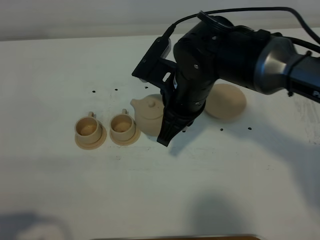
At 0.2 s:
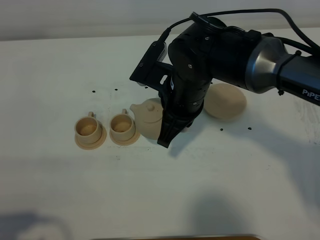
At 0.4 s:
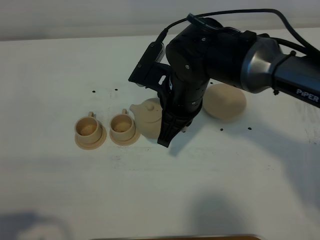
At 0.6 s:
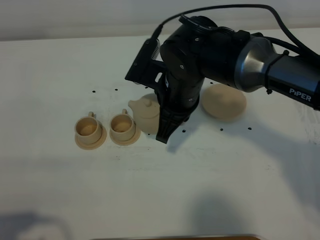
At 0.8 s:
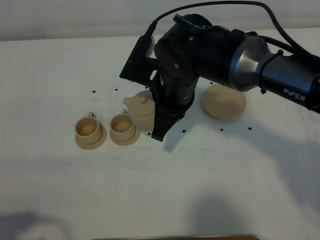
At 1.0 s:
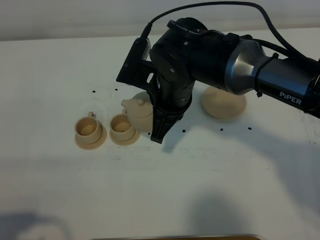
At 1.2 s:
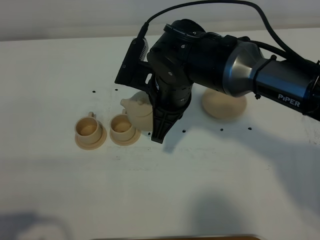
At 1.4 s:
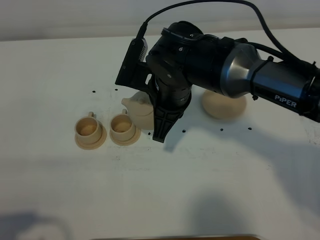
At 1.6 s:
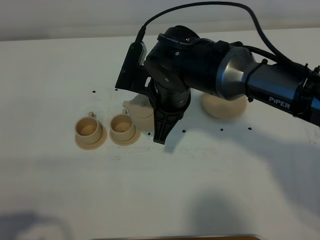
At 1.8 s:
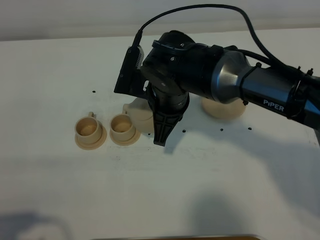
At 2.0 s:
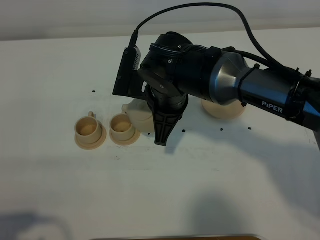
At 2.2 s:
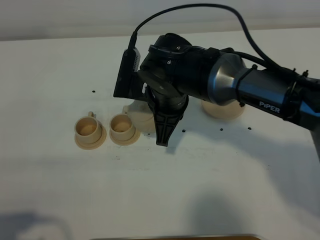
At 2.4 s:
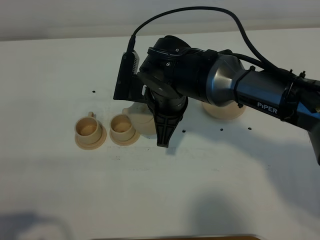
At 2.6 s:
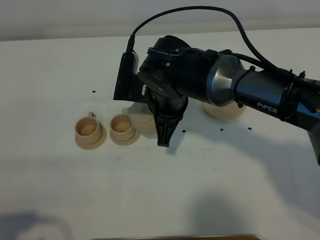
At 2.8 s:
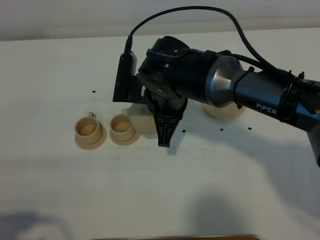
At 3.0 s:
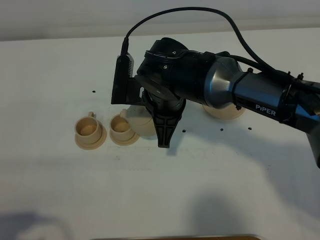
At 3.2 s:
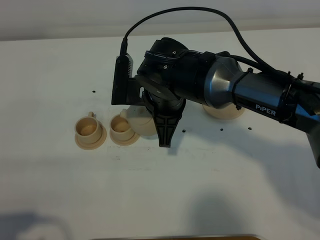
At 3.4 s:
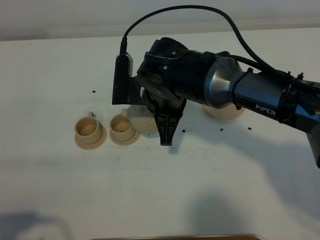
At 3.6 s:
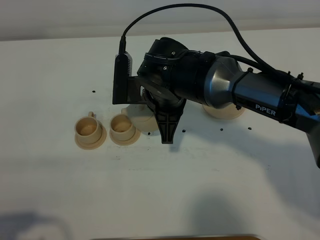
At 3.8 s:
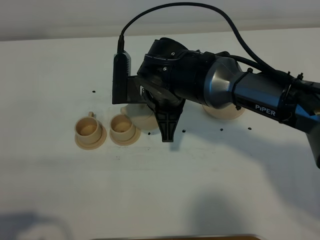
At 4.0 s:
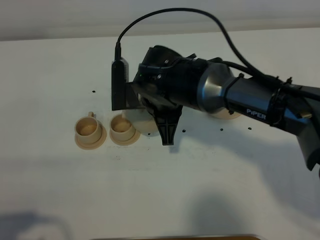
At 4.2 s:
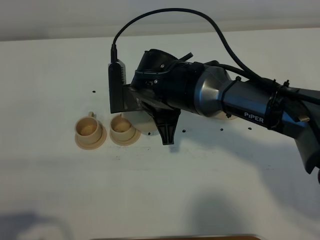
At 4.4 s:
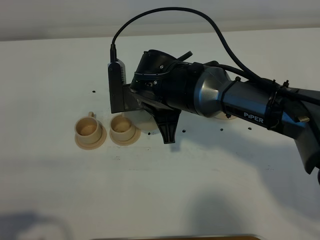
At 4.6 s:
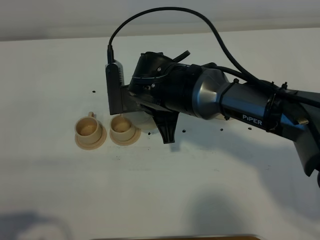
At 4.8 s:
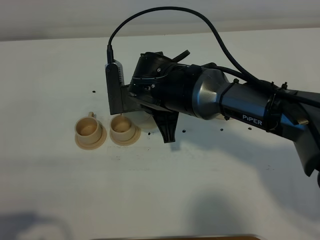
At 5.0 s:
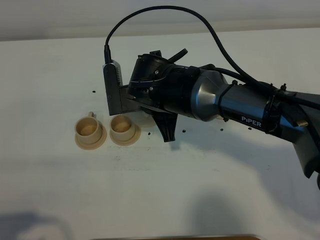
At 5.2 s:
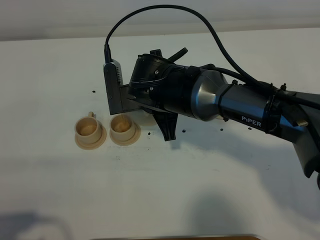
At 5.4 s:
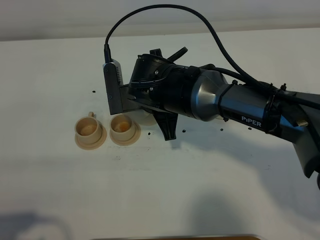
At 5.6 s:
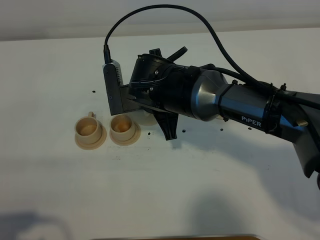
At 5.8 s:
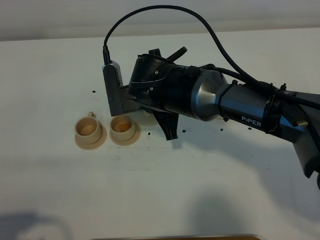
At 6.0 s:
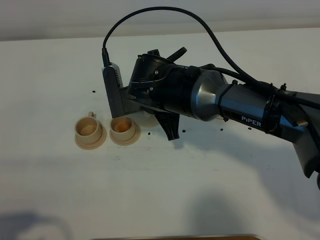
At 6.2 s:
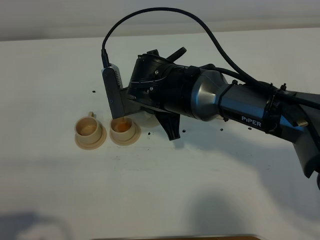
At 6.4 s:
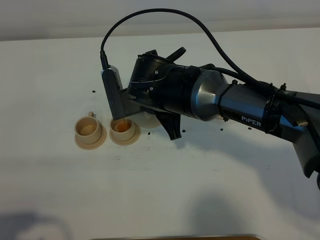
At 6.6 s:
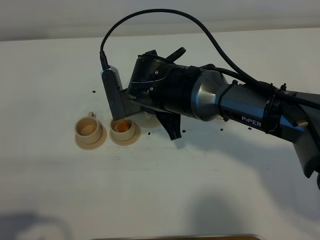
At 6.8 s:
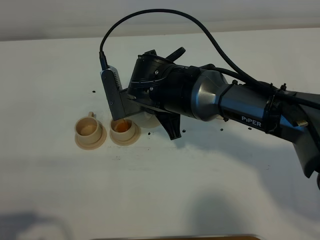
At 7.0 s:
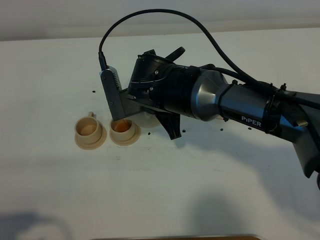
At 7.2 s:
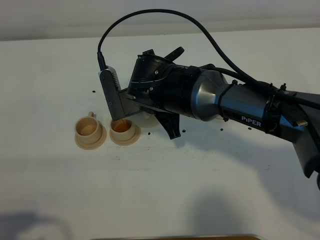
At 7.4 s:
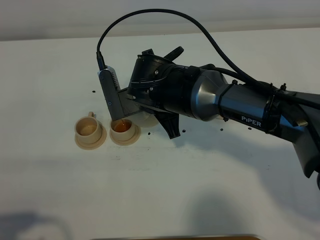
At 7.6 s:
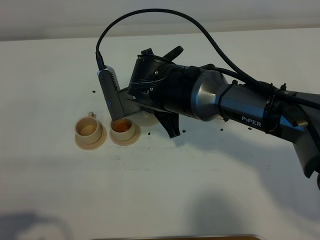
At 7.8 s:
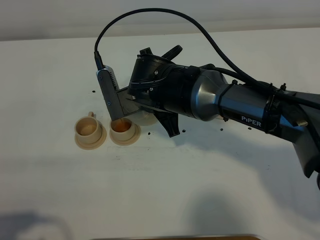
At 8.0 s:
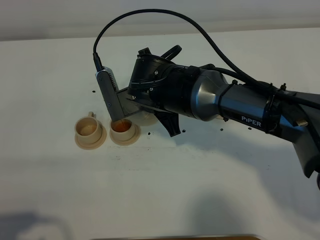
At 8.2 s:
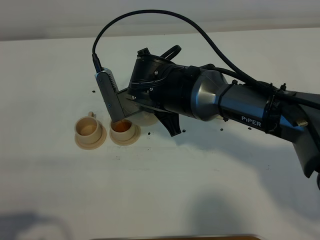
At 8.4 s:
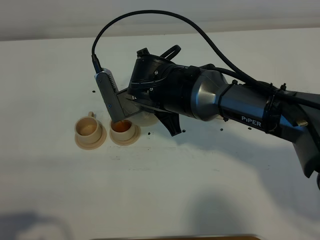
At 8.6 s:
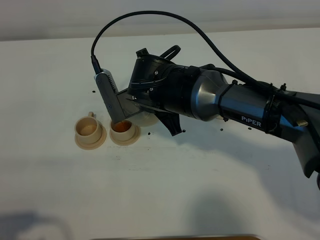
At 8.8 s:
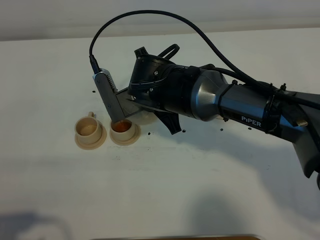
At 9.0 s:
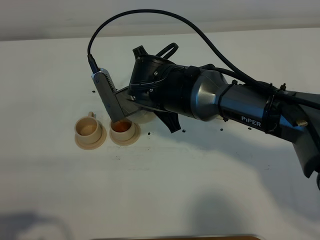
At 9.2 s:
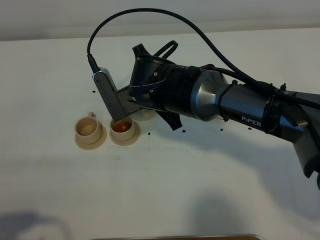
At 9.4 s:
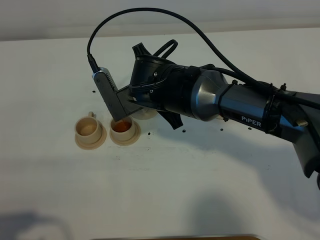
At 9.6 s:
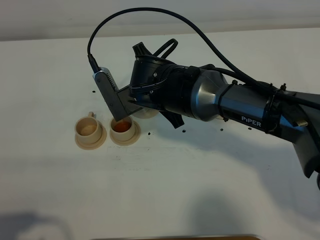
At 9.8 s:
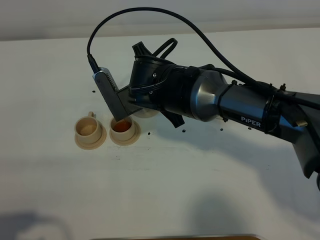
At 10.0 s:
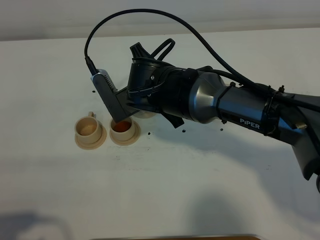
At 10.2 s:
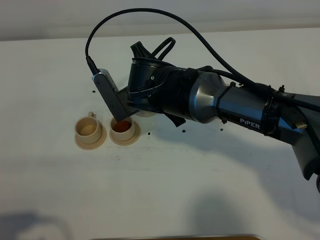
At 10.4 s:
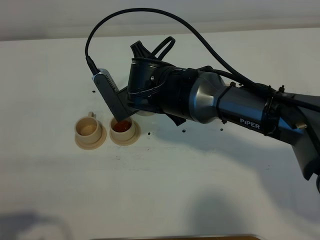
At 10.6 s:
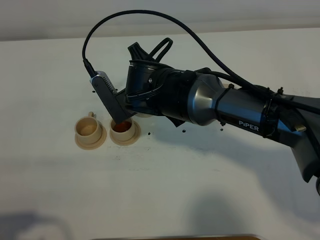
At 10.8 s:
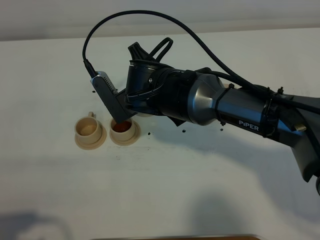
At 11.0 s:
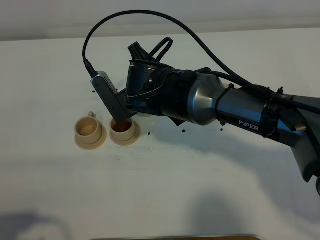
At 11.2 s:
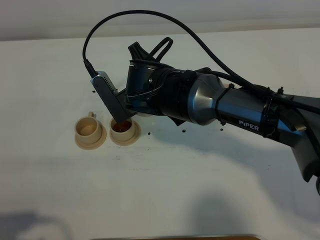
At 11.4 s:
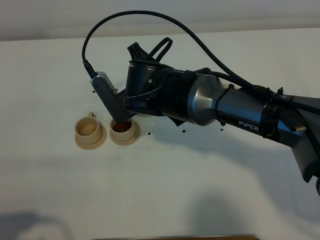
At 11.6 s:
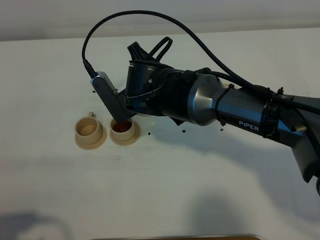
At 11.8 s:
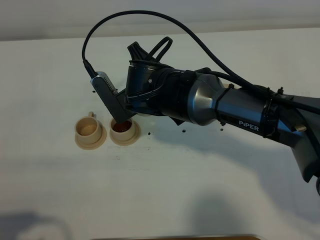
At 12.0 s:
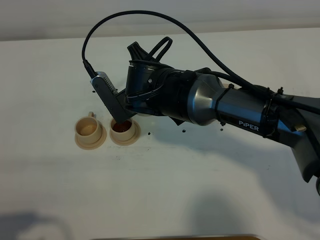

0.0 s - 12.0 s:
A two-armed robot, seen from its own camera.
Task of the whole recording: grasp the brown teapot and pour the tea into the two brown teacups one by one, put the brown teapot back in its original place.
0.0 s - 1.6 s: The grippers make only small movements.
1.6 s - 3.0 s: There are only small adjustments of the grippers.
3.0 s - 4.4 s: The grippers stay close to where they were, moving slightly.
4.4 s - 7.6 s: The grippers stay close to where they were, moving slightly.
7.6 s - 10.4 s: The grippers make only small movements.
10.4 s - 12.0 s: Neither gripper changes place.

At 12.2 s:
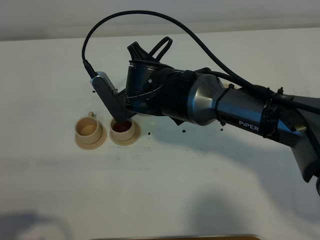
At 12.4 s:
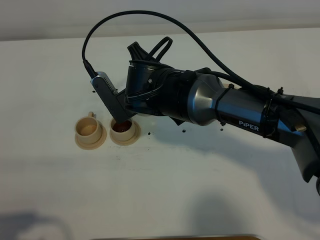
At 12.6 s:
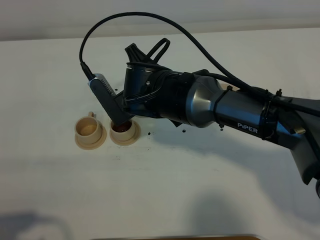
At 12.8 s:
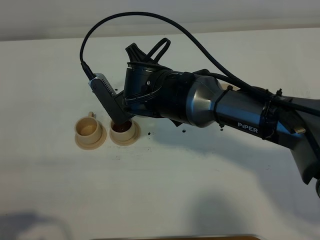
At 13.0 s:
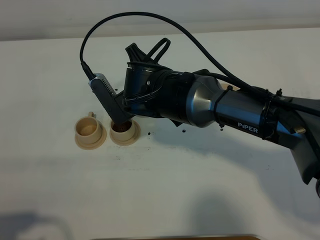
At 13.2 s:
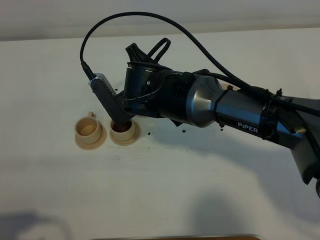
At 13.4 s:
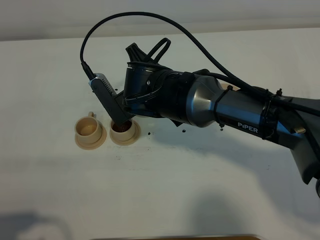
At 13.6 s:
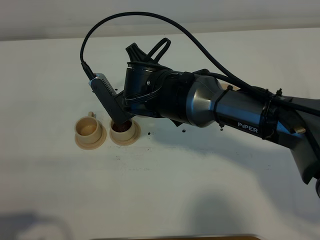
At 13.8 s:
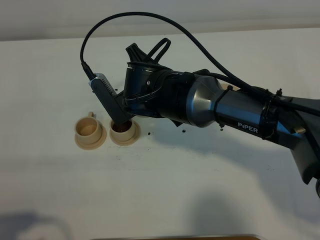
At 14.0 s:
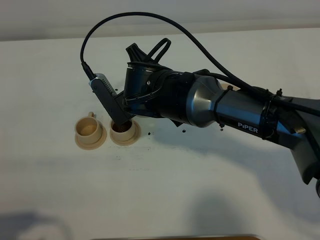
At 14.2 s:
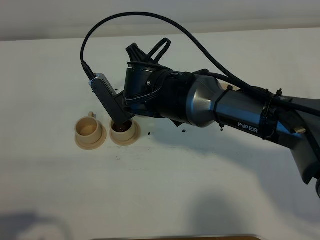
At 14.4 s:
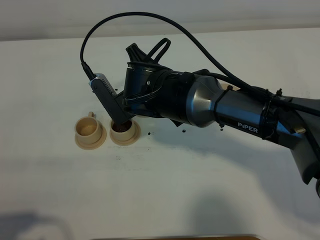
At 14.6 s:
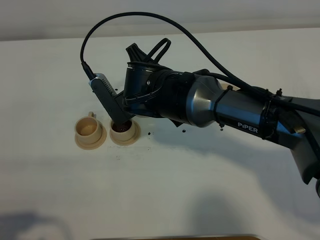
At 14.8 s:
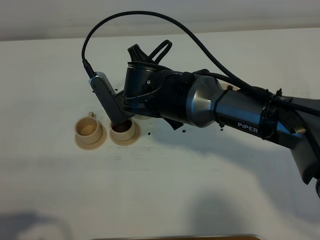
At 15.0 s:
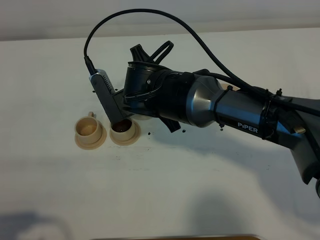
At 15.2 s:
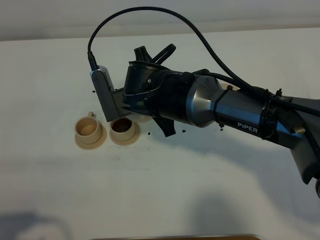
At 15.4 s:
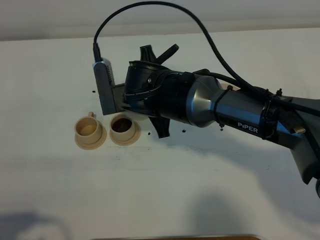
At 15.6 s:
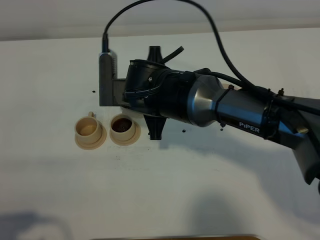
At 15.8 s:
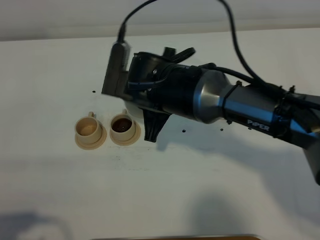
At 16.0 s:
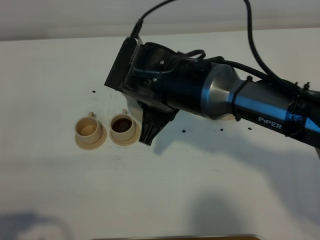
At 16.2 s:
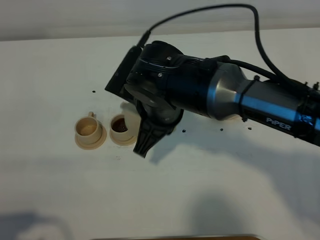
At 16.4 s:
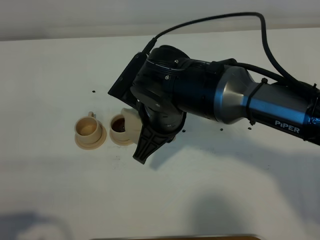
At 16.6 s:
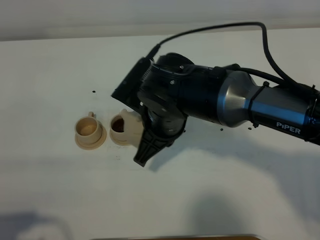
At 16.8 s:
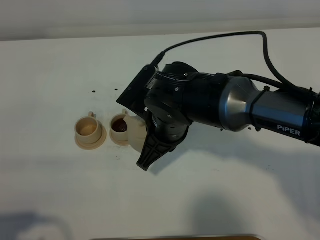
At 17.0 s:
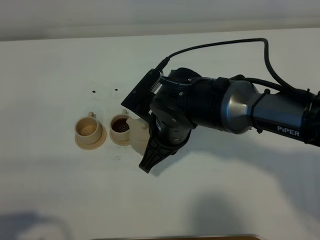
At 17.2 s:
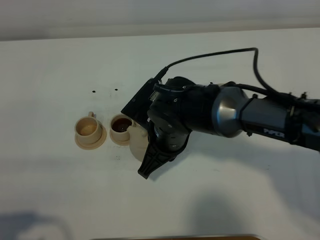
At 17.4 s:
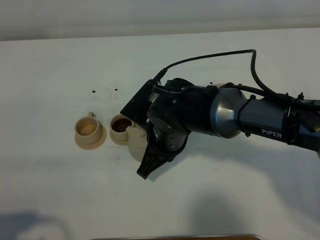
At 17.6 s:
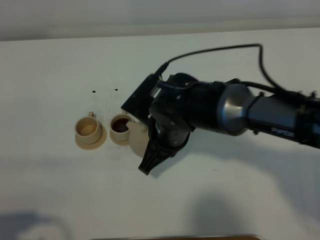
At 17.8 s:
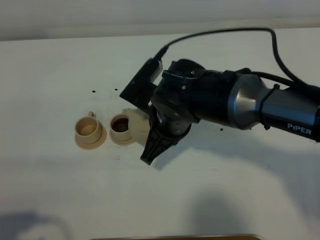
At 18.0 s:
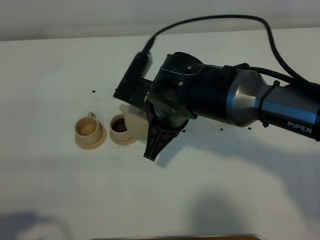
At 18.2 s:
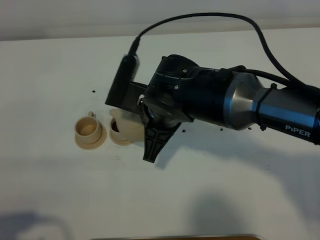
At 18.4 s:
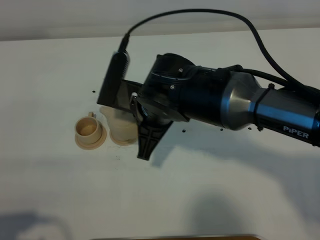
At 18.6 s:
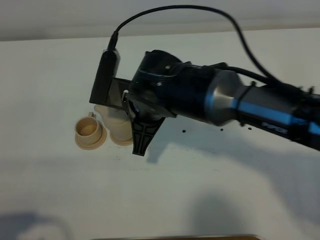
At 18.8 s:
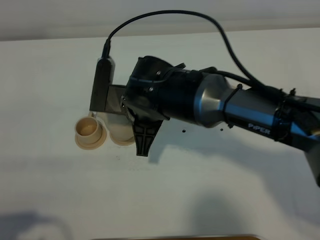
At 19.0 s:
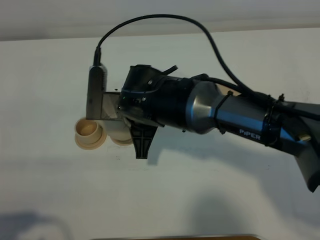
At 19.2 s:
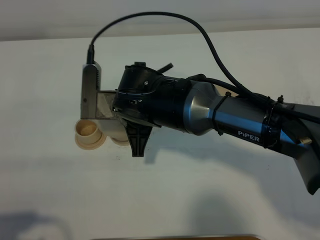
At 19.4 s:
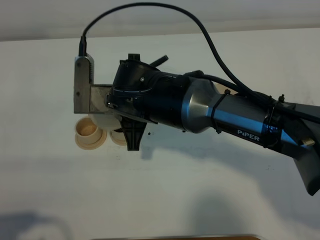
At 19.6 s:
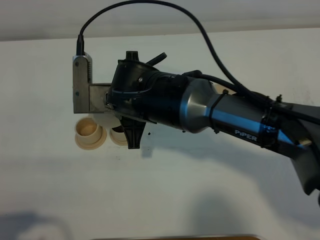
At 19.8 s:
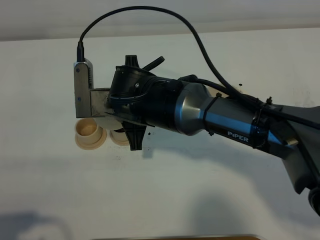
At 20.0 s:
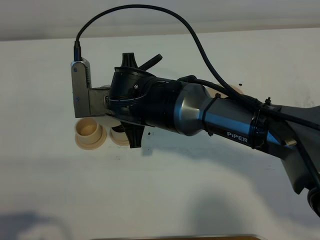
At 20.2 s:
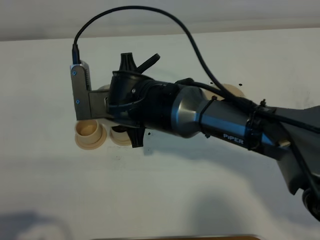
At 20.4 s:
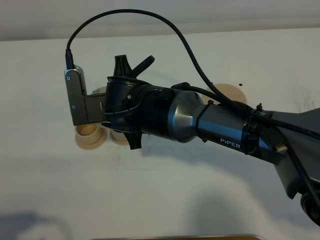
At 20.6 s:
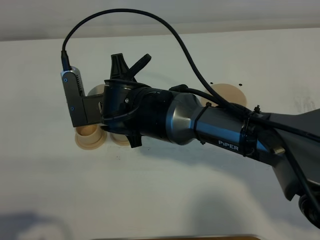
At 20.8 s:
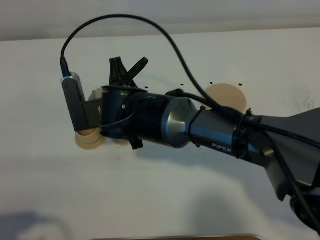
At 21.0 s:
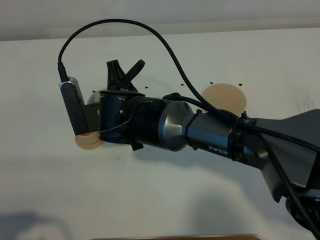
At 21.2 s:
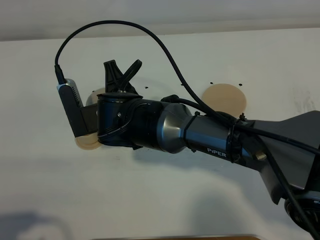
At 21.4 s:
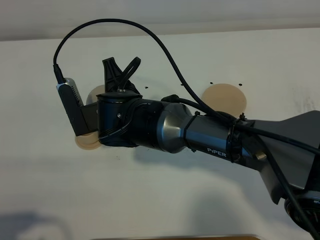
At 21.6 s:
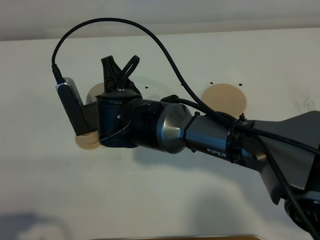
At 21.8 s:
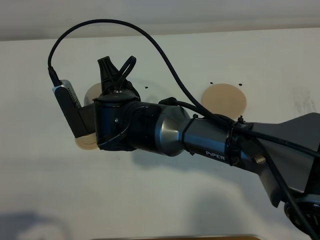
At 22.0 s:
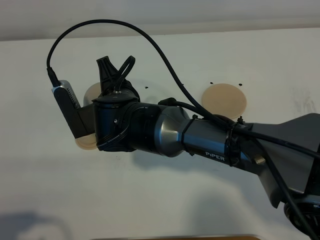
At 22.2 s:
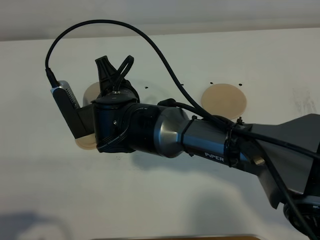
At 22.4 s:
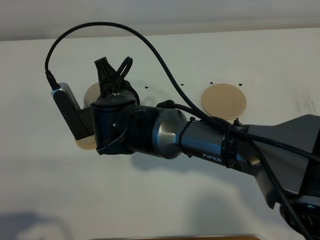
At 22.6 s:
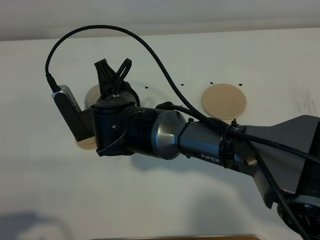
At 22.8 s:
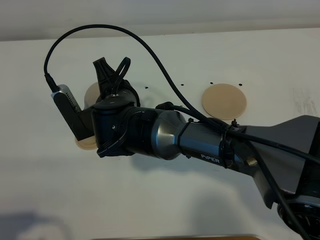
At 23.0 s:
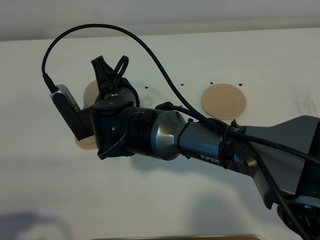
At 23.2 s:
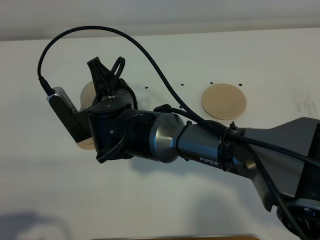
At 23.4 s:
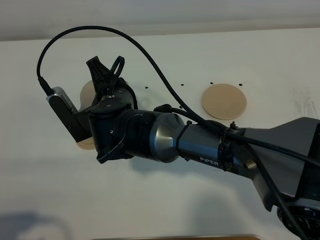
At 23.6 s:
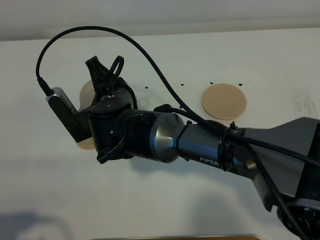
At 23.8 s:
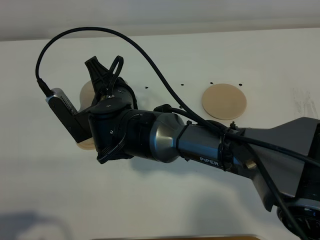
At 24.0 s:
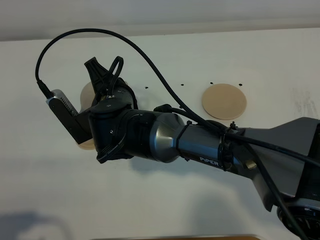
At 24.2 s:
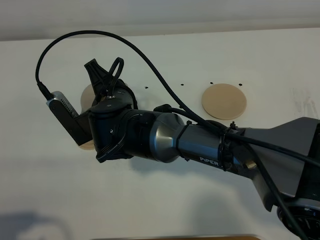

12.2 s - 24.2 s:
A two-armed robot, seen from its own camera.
Task of the whole recording: grasp the brown teapot and pour the tea into the two brown teacups one by one, put the brown teapot back in its original place.
Step, 12.2 s - 15.0 s: Pour tea into the teacup with the right gripper.
12.2 s - 13.8 s: The two grippers keep their place.
13.8 s - 15.2 s: The grippers move only a little.
16.6 s - 18.2 s: The grippers move only a little.
18.2 s - 19.8 s: The right gripper ends up roughly 5 cm from where it was.
21.2 s - 24.2 s: The grippers stay close to where they were, moving slightly.
